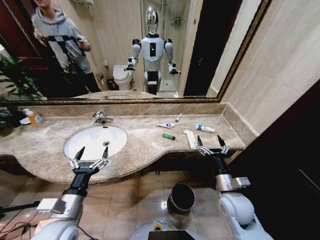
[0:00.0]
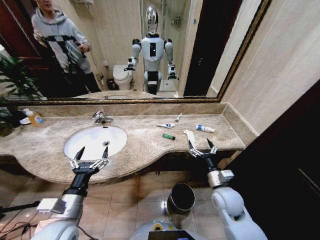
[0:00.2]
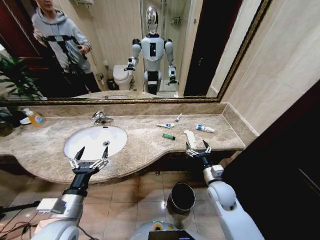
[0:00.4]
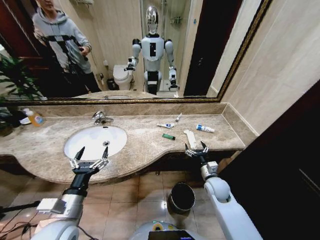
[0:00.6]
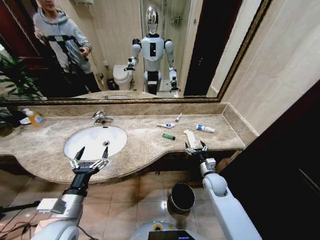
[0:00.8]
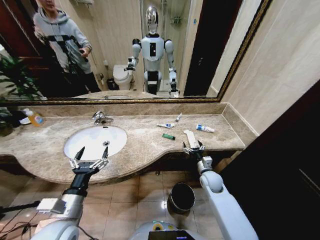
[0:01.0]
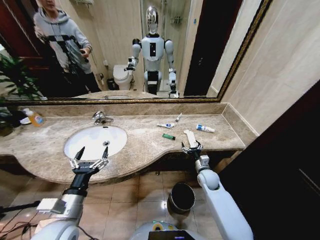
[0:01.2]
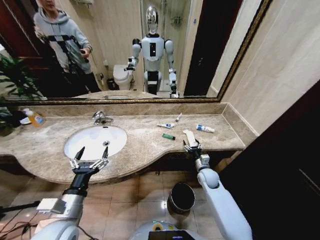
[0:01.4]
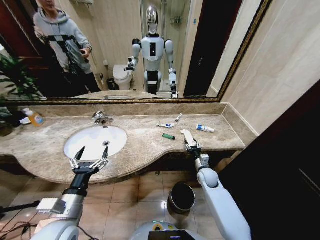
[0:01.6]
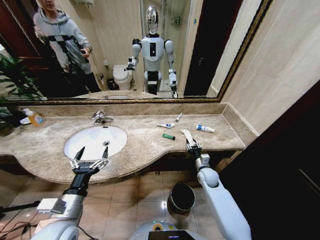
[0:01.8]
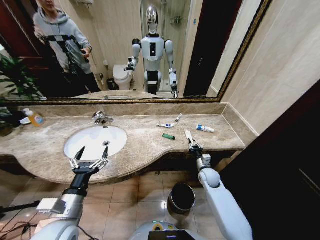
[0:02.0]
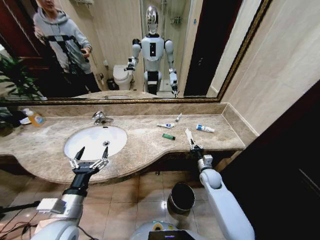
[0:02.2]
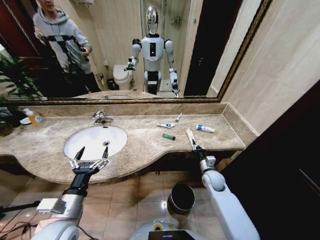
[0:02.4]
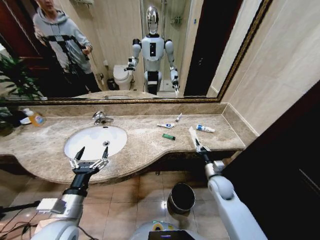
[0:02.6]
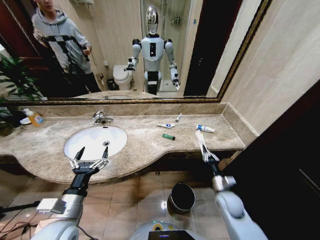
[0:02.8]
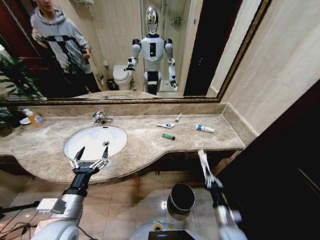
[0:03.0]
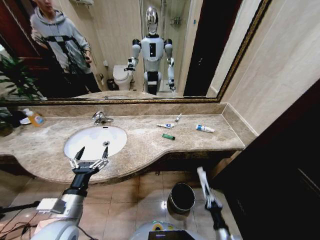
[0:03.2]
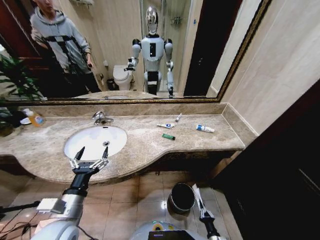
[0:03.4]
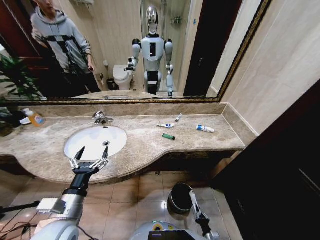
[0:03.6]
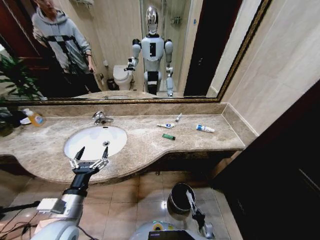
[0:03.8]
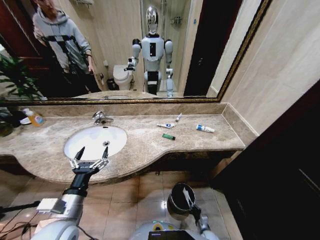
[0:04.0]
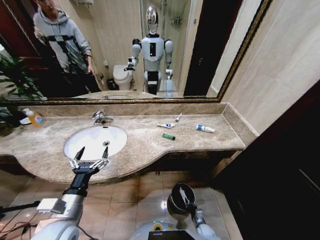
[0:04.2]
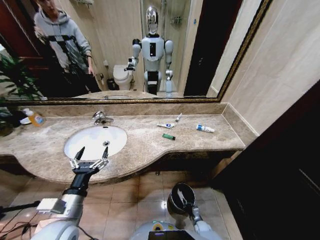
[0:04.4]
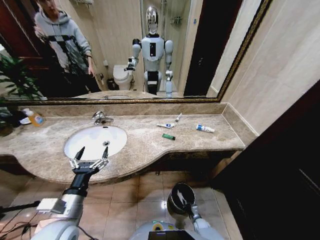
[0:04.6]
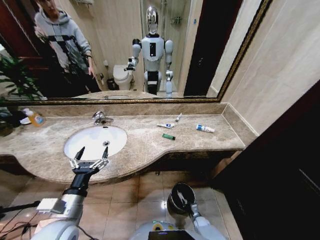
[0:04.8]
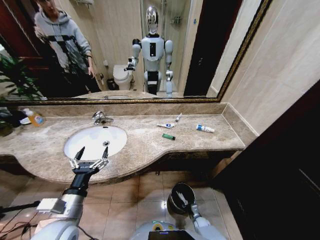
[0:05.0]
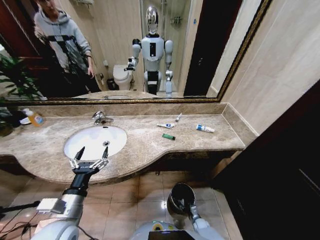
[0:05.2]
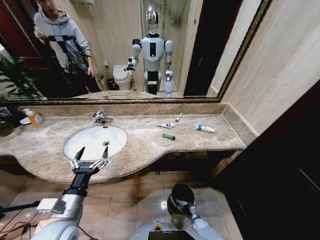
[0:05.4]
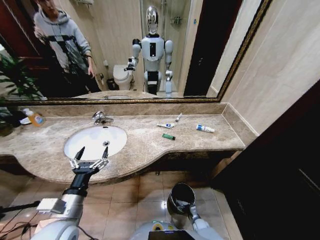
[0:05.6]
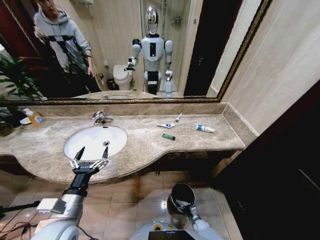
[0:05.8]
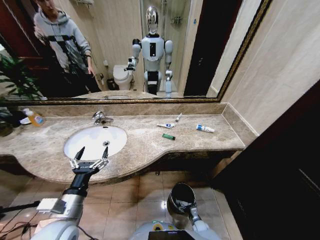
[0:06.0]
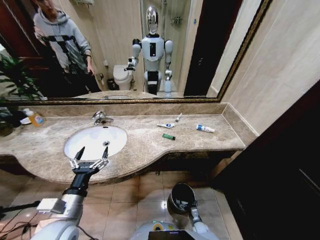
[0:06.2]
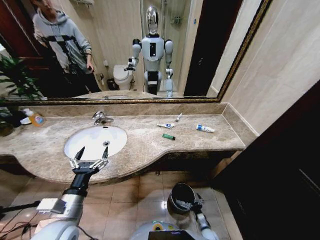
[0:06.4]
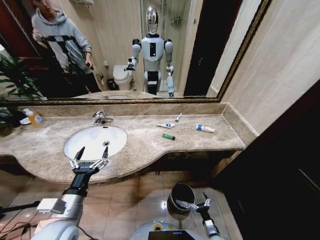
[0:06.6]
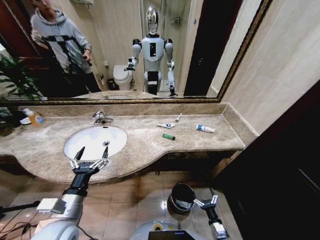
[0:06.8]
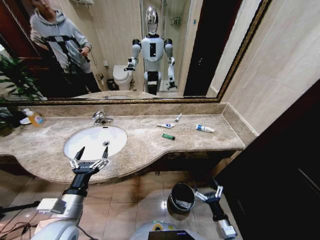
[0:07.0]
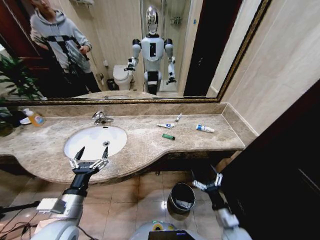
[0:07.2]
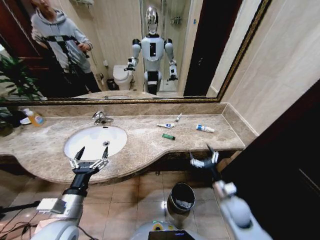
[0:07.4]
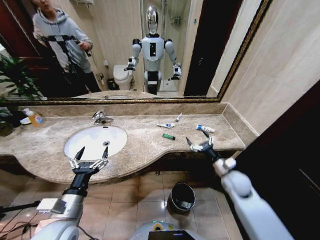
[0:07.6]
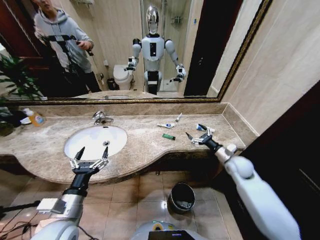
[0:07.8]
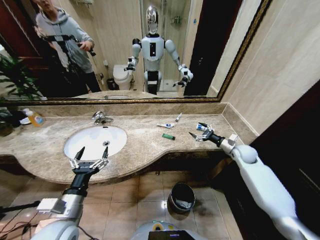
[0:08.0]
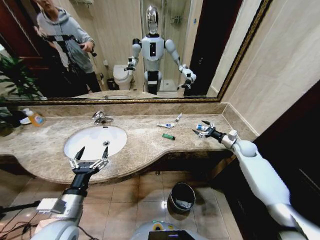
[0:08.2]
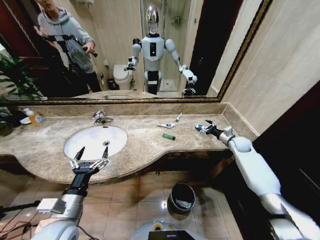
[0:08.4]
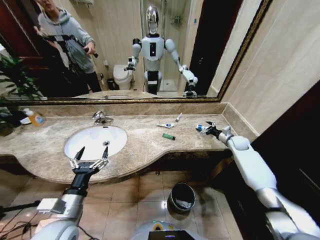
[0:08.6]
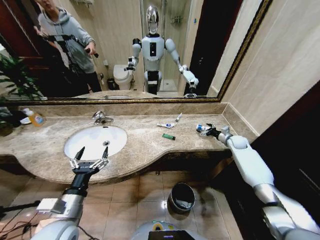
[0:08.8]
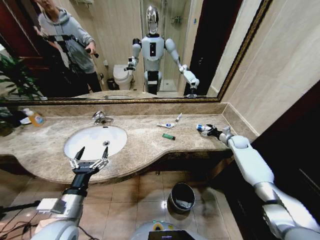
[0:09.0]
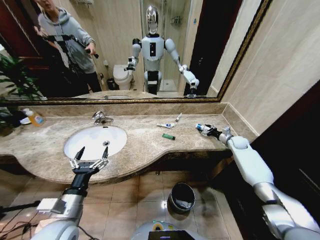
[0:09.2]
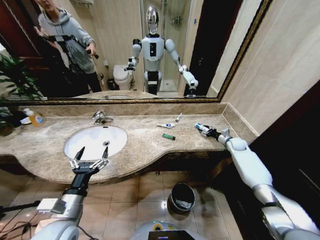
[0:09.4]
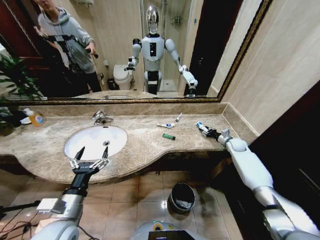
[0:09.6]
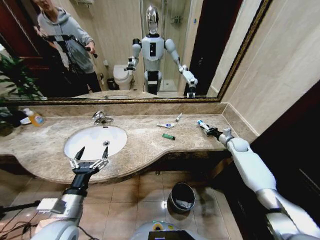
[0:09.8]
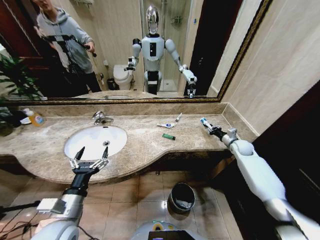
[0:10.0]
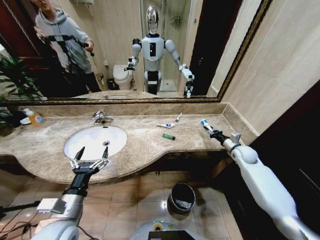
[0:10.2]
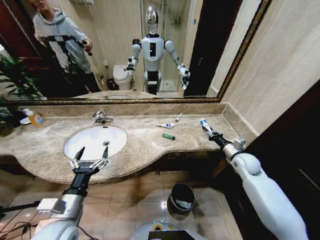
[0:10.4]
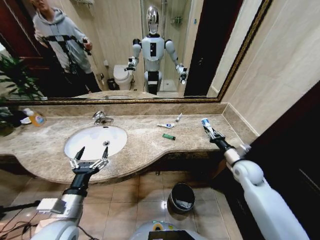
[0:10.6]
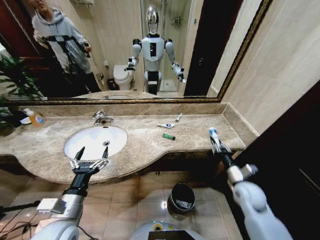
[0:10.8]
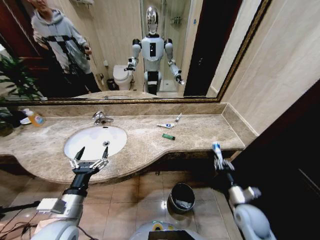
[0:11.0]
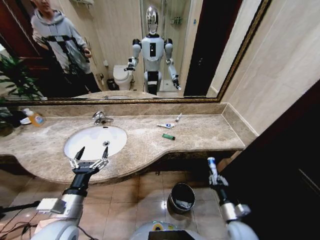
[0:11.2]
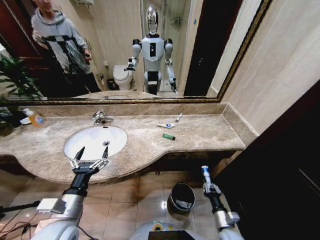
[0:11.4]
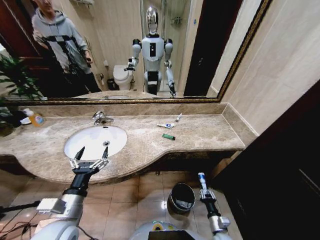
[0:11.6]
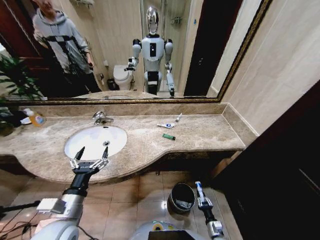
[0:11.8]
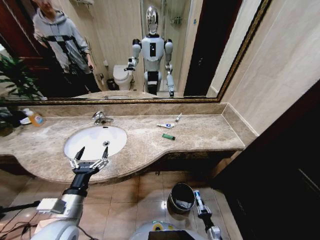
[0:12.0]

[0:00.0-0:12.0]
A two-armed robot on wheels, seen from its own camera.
Task of the whole recording: Pick up the trash from the sink and place it in the trash bin.
0:01.6 to 0:03.0: The right gripper shifts approximately 20 cm backward, and closes its fingers.
0:03.0 to 0:04.4: The right gripper is displaced downward by approximately 25 cm.
0:06.0 to 0:07.6: The right gripper moves upward, approximately 40 cm.
0:07.6 to 0:09.0: The right gripper heads forward and to the right, covering approximately 30 cm.
0:09.0 to 0:10.4: The right gripper travels backward and to the left by some 15 cm, and closes.
0:10.4 to 0:12.0: The right gripper goes about 50 cm downward and backward.

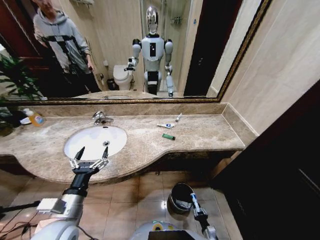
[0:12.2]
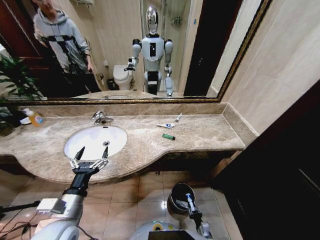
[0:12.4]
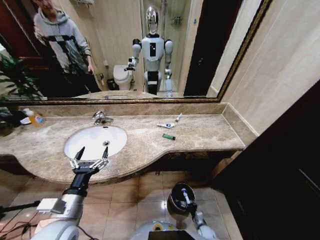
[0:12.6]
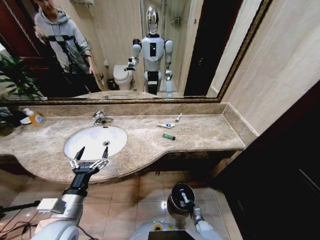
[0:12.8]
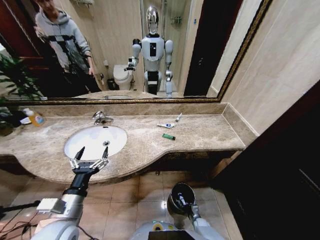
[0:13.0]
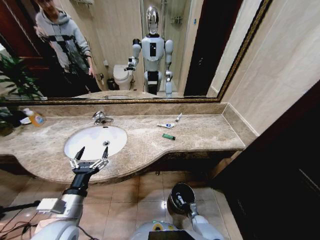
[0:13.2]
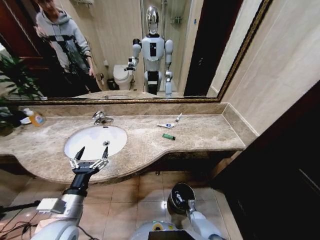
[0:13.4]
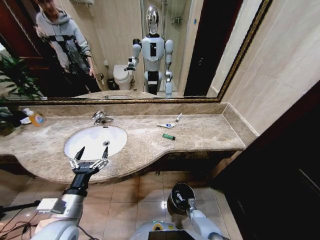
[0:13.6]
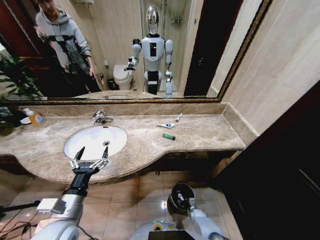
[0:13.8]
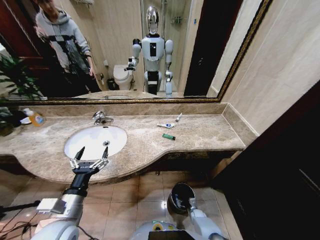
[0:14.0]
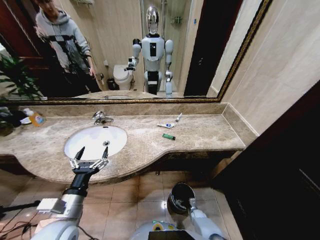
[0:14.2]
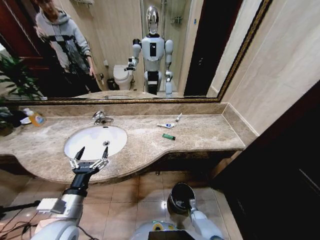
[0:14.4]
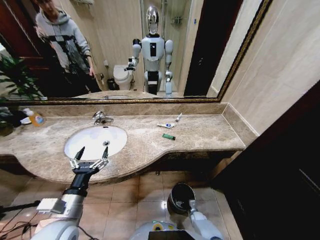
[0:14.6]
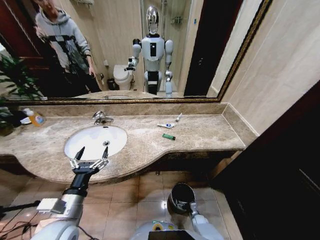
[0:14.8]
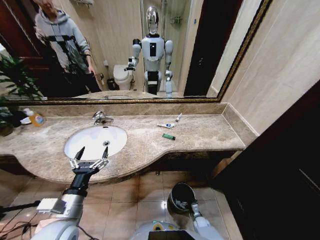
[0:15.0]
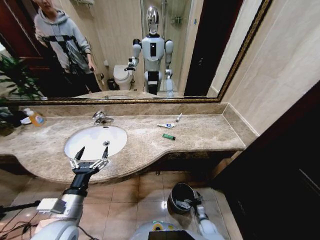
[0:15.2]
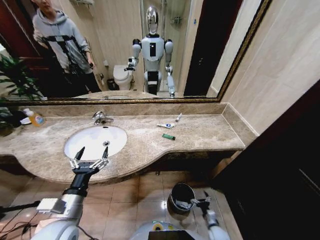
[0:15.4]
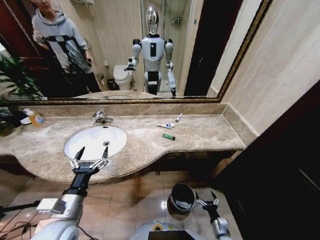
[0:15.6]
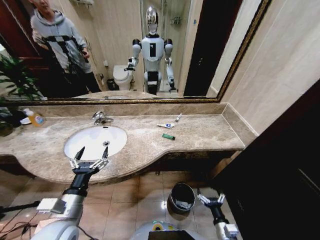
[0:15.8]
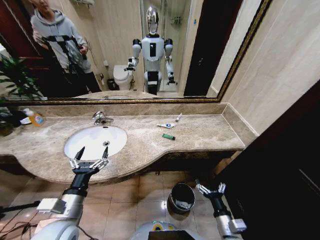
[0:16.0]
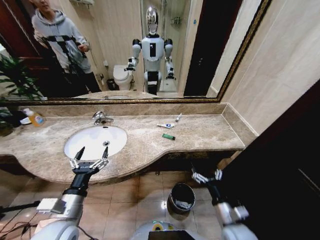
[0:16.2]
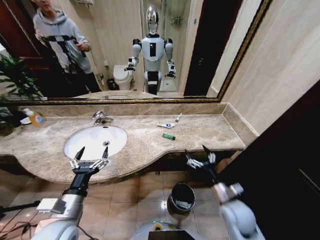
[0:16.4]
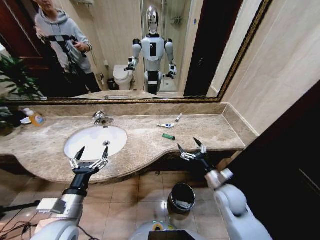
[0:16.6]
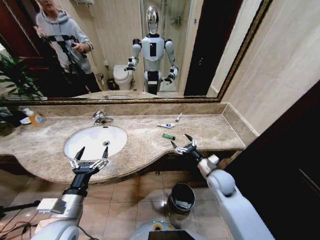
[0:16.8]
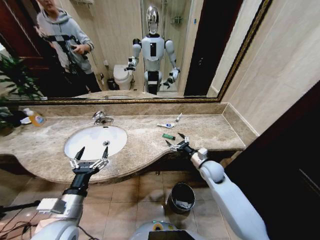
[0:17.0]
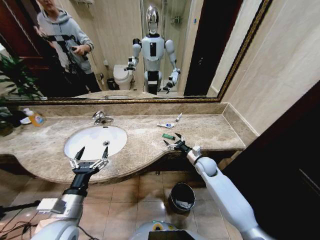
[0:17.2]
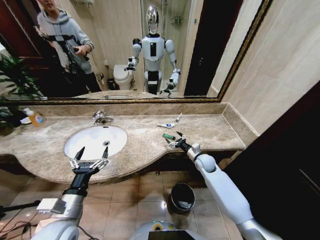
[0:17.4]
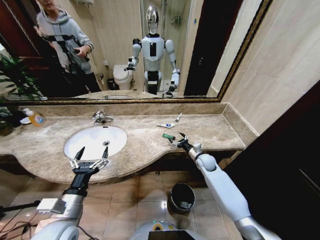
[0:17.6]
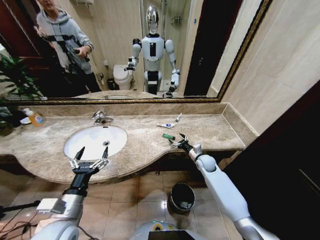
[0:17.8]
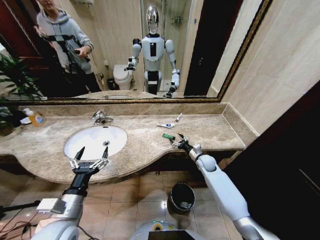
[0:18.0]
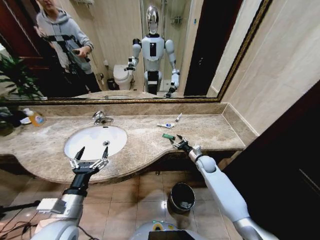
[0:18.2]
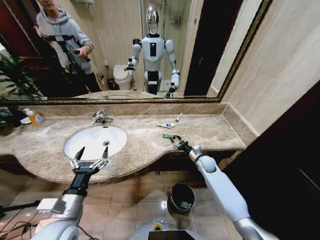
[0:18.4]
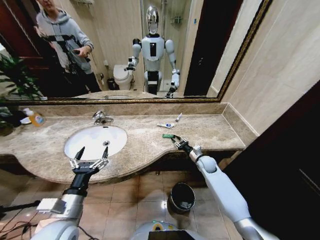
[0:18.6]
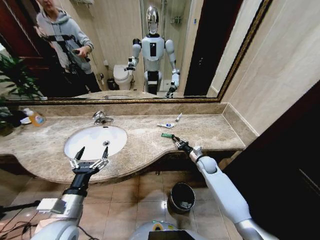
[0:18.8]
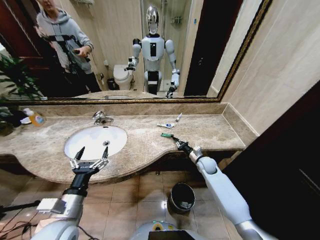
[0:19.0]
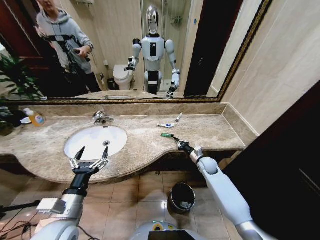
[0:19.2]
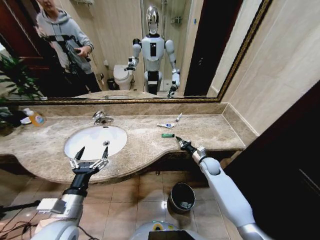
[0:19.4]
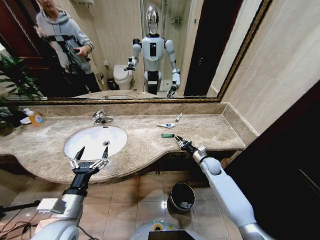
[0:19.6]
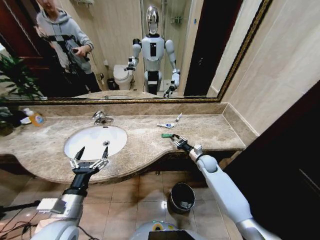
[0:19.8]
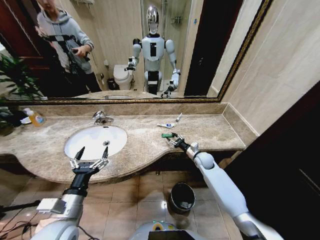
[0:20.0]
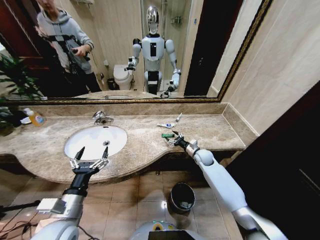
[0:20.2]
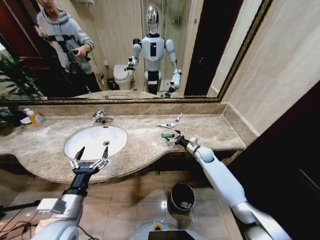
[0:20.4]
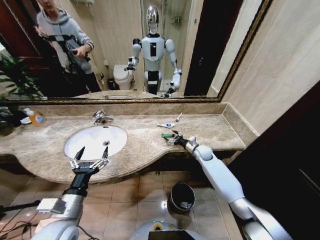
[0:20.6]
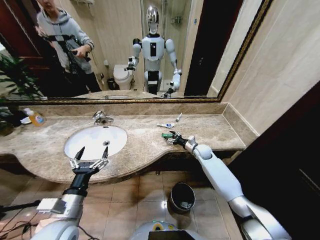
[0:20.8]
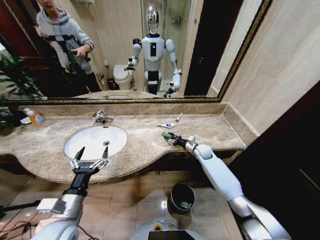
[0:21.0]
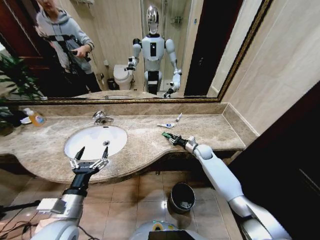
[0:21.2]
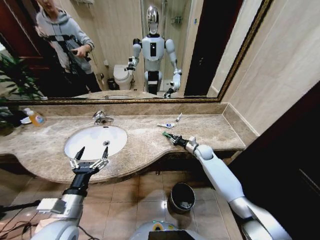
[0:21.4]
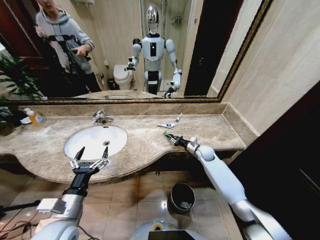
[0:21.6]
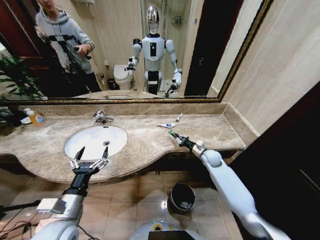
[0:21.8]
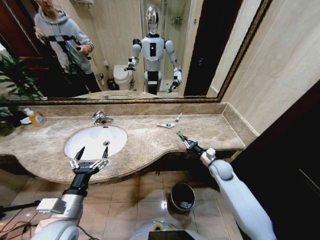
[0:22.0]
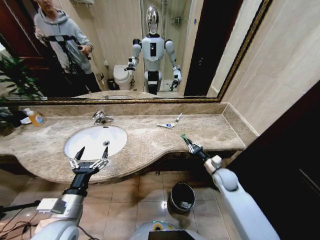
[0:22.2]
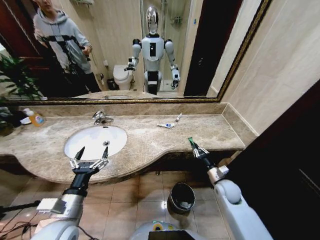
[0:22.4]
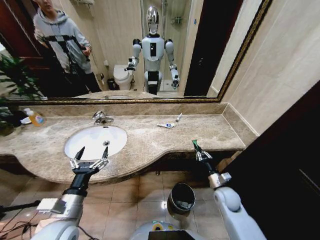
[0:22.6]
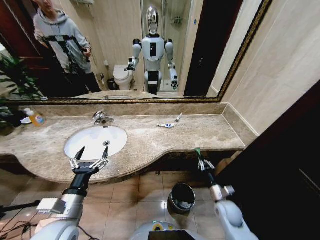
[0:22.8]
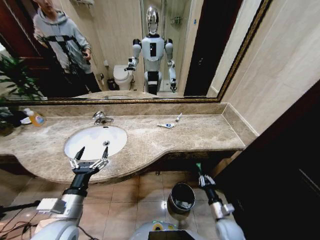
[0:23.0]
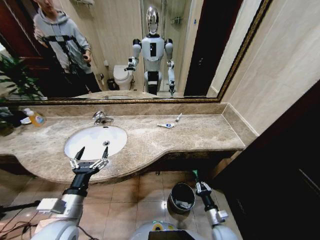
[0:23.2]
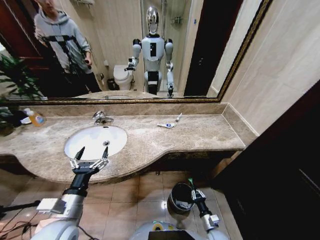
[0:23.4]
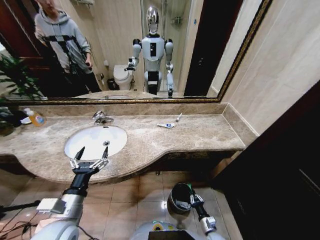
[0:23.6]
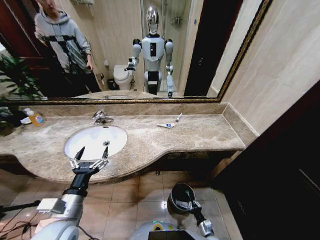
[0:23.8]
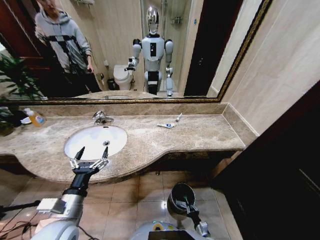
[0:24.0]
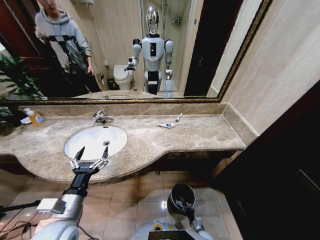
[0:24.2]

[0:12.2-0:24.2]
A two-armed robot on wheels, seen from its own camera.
Task of the whole recording: Pick up the trash from the sink and place it in the trash bin.
0:12.2 to 0:13.8: The right gripper shifts approximately 15 cm forward.
0:13.8 to 0:15.2: The right gripper is displaced backward by some 5 cm, and opens its fingers.
0:15.2 to 0:16.6: The right gripper moves upward, about 40 cm.
0:16.6 to 0:18.2: The right gripper moves forward and downward, some 20 cm.
0:18.2 to 0:19.8: The right gripper closes its fingers.
0:19.8 to 0:21.2: The right gripper moves forward, some 5 cm, and opens, then closes again.
0:21.2 to 0:22.6: The right gripper travels backward by approximately 25 cm.
0:22.6 to 0:24.2: The right gripper goes about 30 cm downward.
